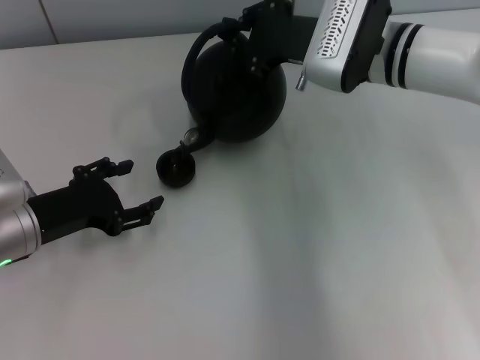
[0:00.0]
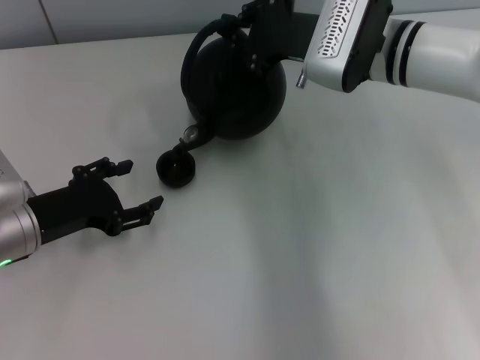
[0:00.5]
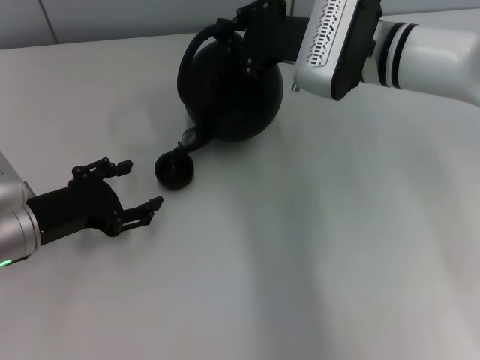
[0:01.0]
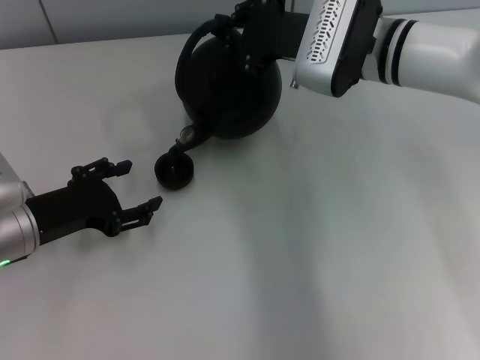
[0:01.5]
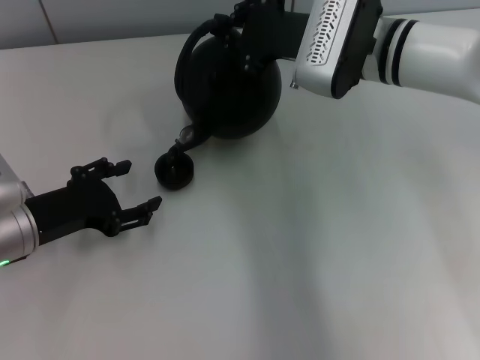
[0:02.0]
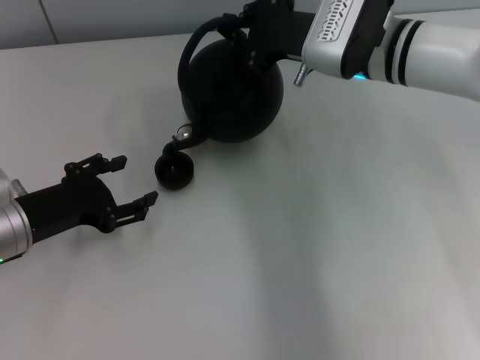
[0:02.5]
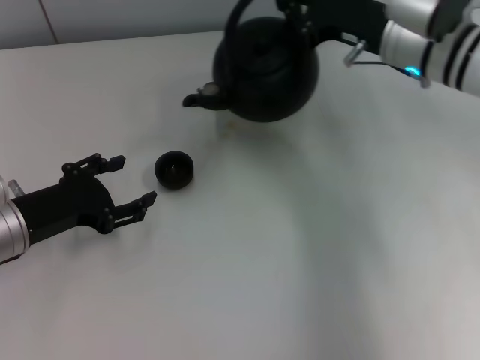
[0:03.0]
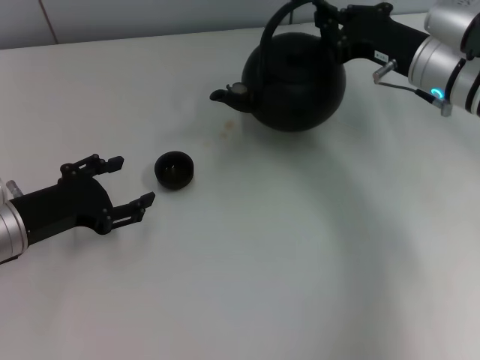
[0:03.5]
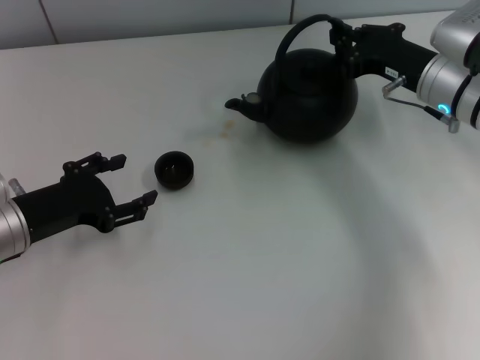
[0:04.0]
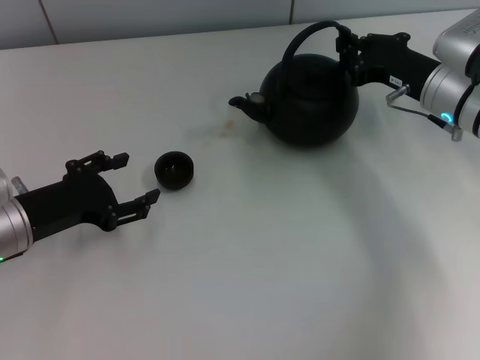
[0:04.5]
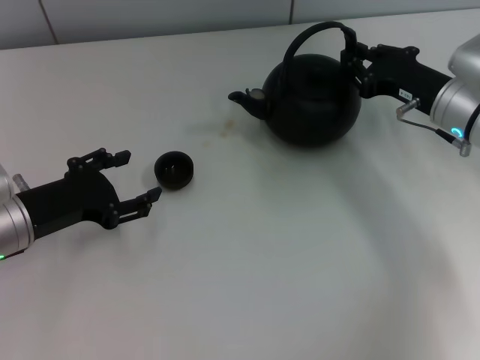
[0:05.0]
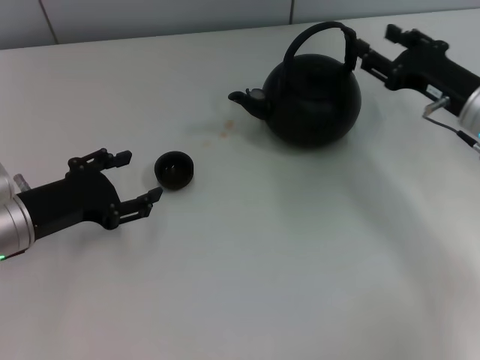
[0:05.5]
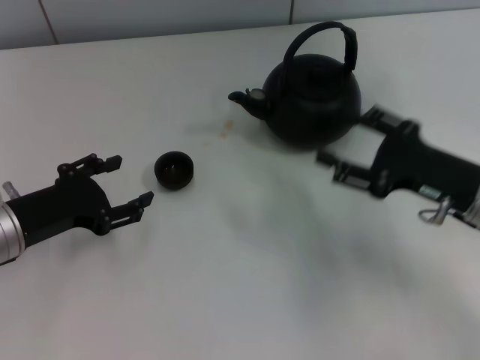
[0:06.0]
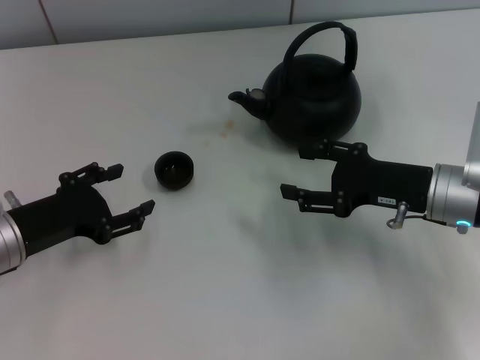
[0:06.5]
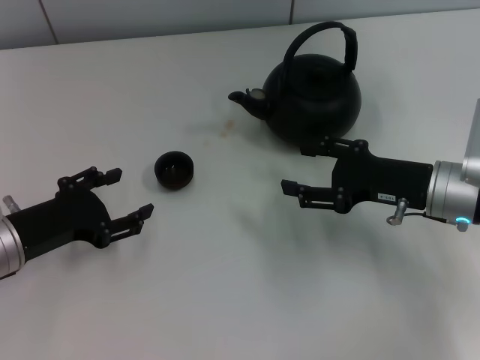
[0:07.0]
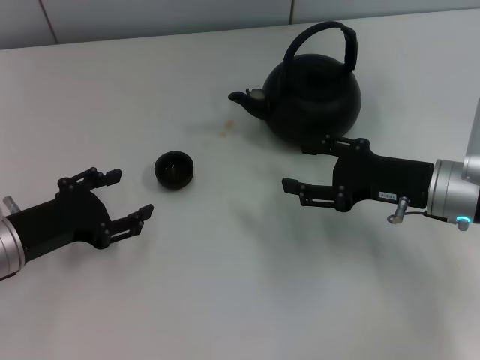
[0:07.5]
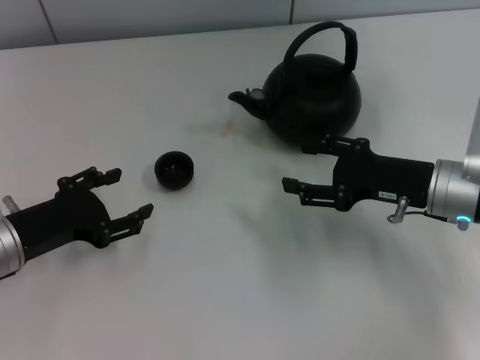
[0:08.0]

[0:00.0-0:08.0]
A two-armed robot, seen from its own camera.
Task of the whole recording: Grasp the handle of the teapot with one hand and pour tea into the teacup.
Step, 0:03.0 to 0:05.5: Put down the teapot with the right gripper.
0:00.0 to 0:02.0: Neither gripper changes place.
0:02.0 to 0:04.0: The right gripper moves to the right and downward, roughly 10 cm.
0:04.0 to 0:06.0: The right gripper moves backward, some 10 cm, and opens up.
0:06.0 to 0:08.0: There are only small adjustments of the grippers.
